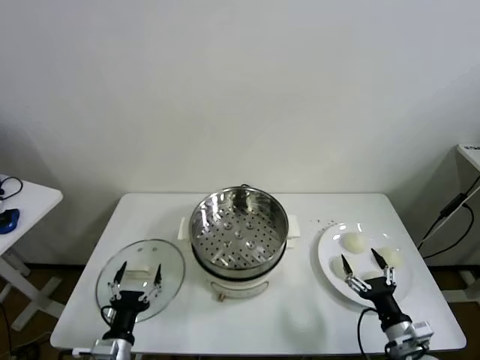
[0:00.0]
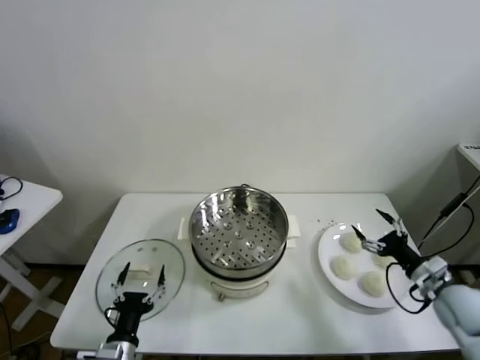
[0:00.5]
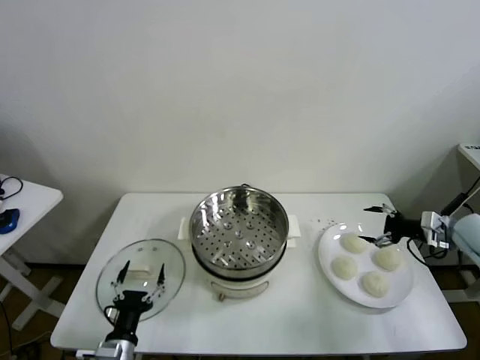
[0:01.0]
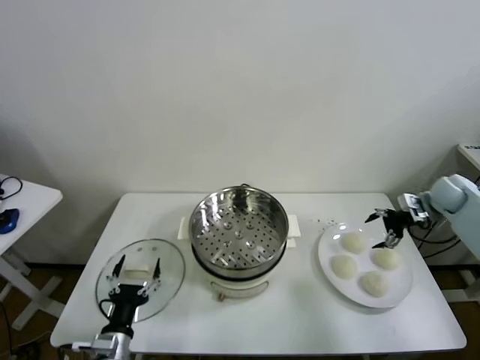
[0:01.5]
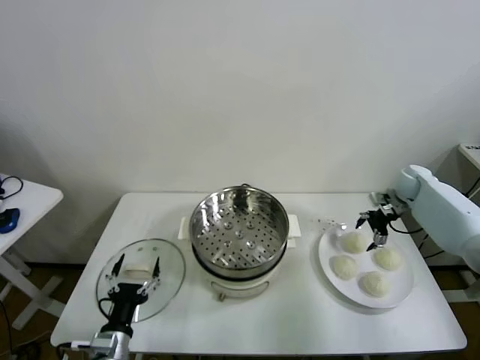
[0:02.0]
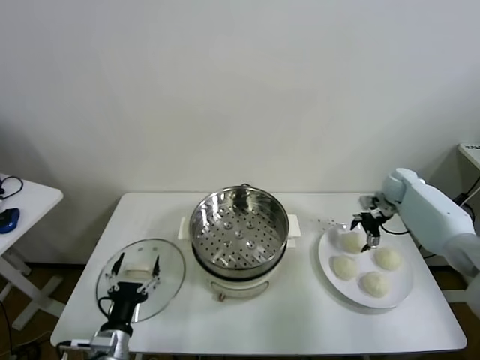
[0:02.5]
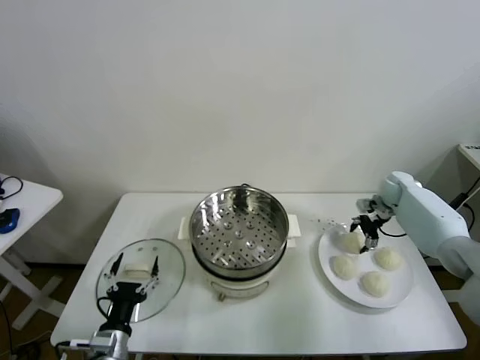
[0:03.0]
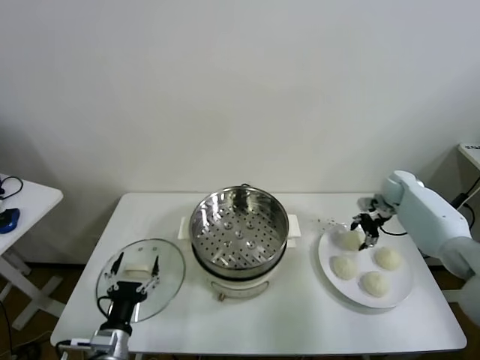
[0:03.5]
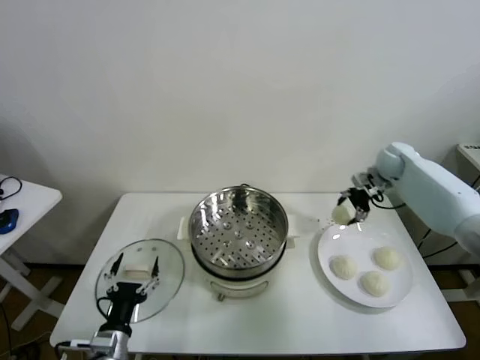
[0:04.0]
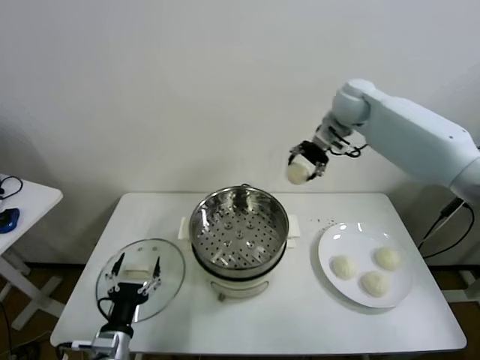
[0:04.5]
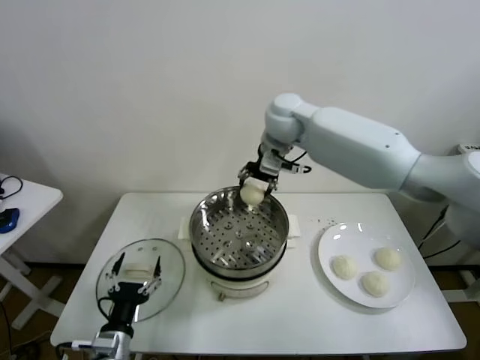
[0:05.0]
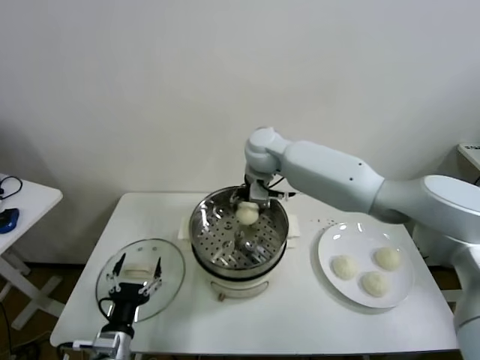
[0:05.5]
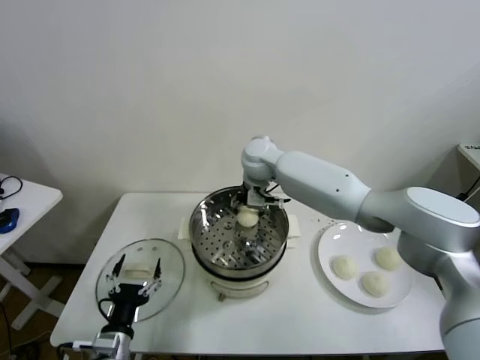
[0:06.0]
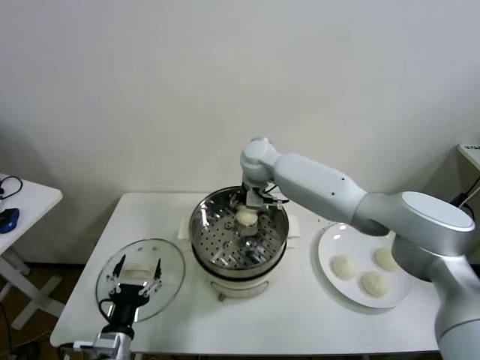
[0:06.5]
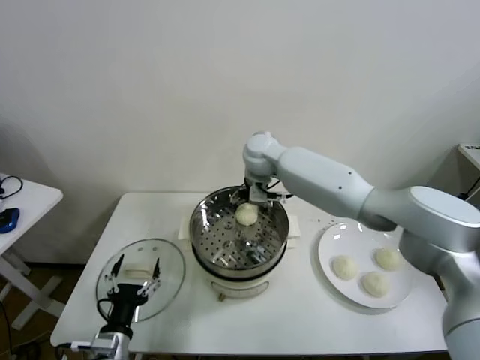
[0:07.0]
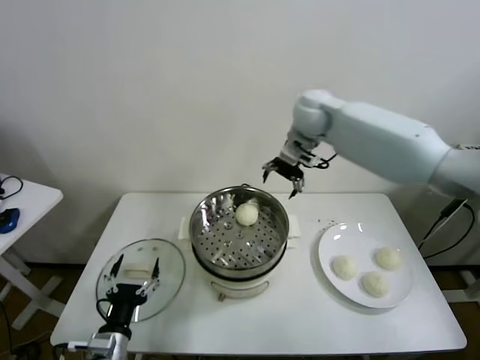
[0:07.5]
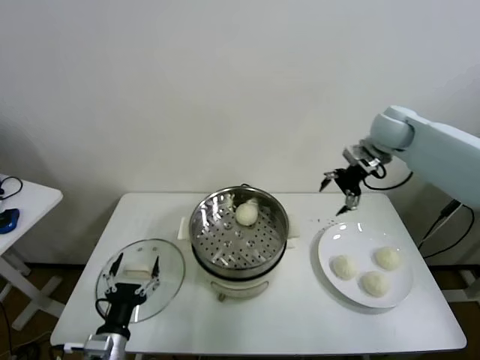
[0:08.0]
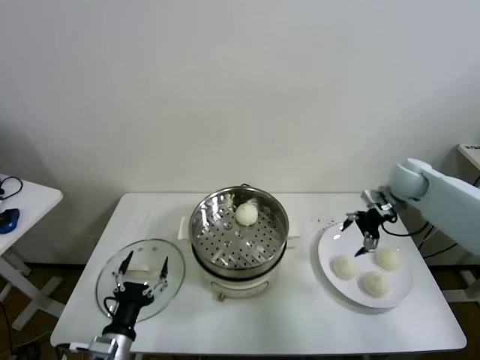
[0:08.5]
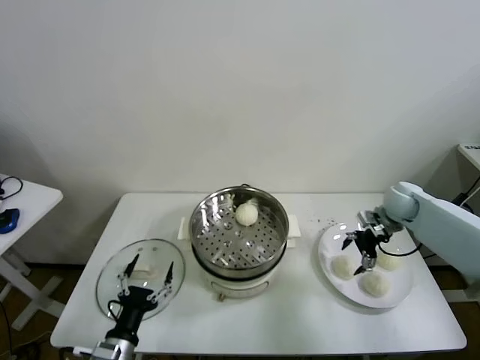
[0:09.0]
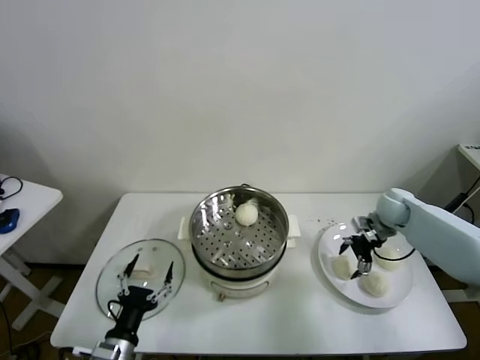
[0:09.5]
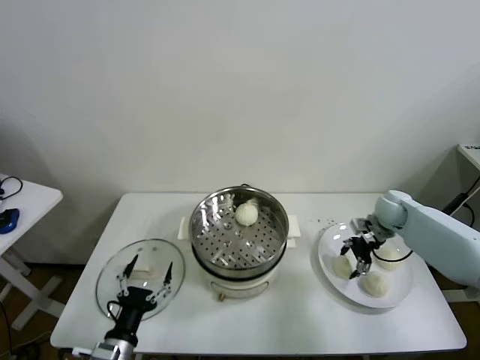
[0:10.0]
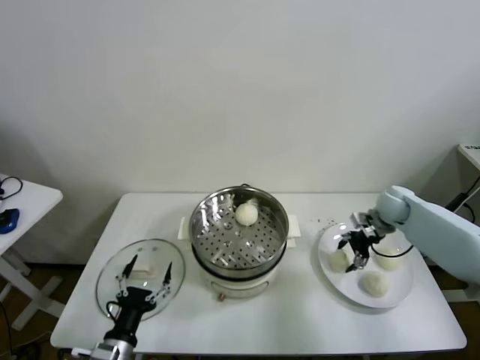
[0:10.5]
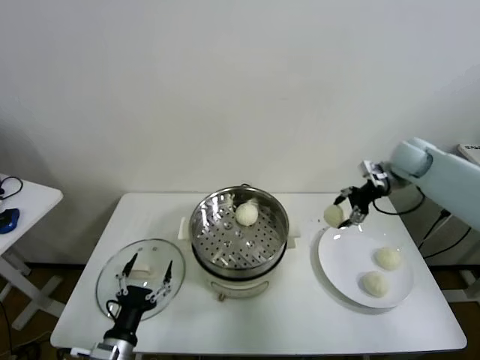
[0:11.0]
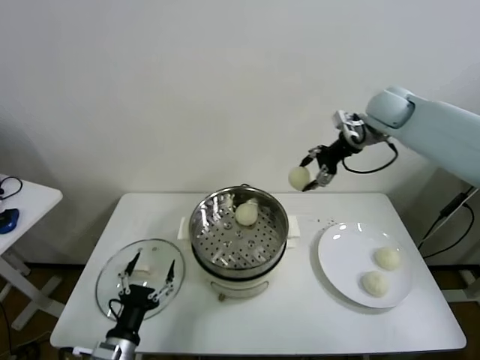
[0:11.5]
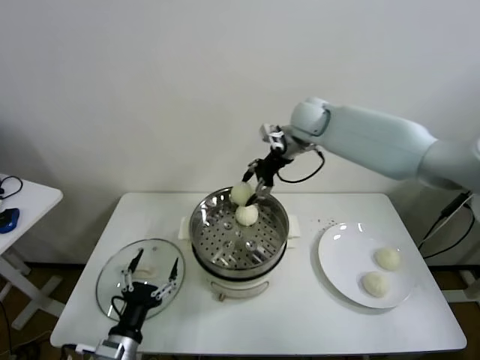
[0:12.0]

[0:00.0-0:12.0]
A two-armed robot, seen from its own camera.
Task of the whole recording: take steamed baozi put them in steamer.
Step, 0.0 to 3.0 s: Grasp the baozi in the plate with right gripper.
Step, 3.5 to 7.0 s: Place the baozi on the steamer with right gripper.
Step, 7.5 to 10.0 s: Grasp the baozi in the plate with right gripper.
2.0 to 4.0 s: The right gripper shifts some 15 cm upward and to the left, and closes its fingers.
4.0 to 6.0 s: The right gripper goes roughly 35 cm to the left.
6.0 to 8.0 s: The right gripper goes roughly 30 cm to the right, and opens its fingers.
8.0 to 10.0 s: The right gripper goes roughly 20 cm downward, and closes.
10.0 to 12.0 s: The right gripper shifts roughly 35 cm to the left and upward.

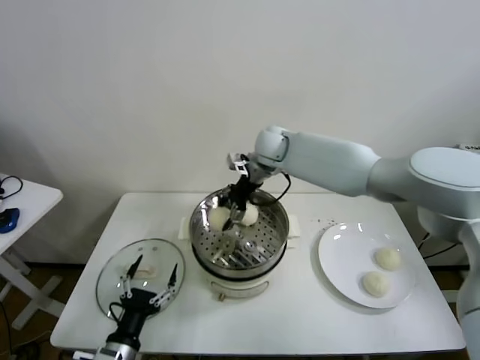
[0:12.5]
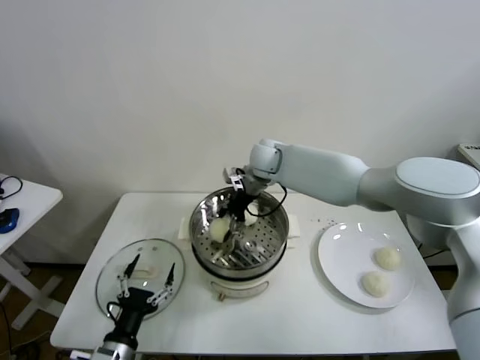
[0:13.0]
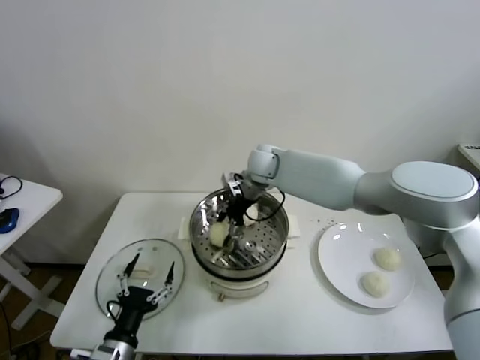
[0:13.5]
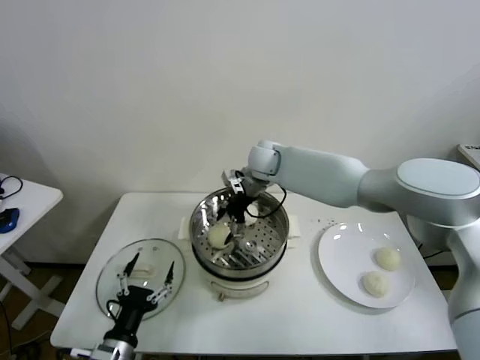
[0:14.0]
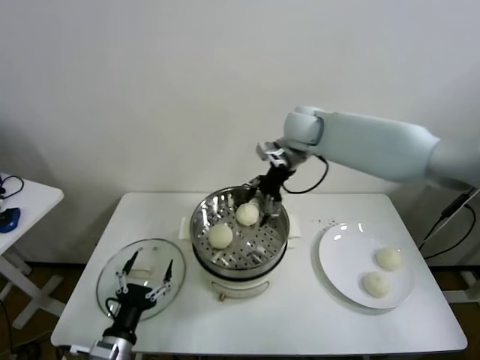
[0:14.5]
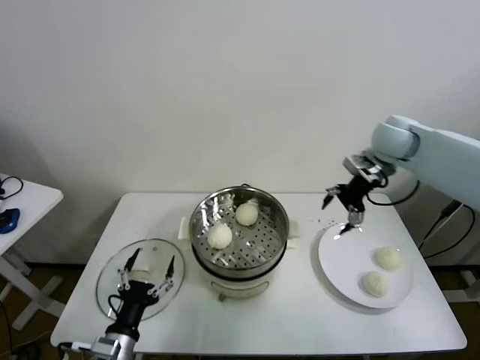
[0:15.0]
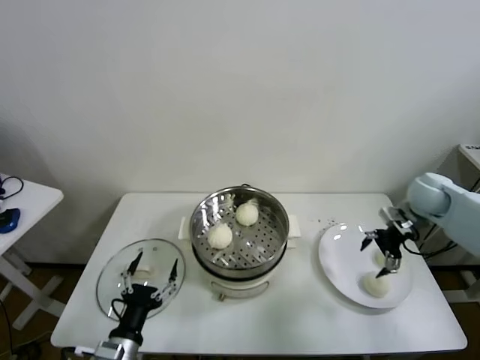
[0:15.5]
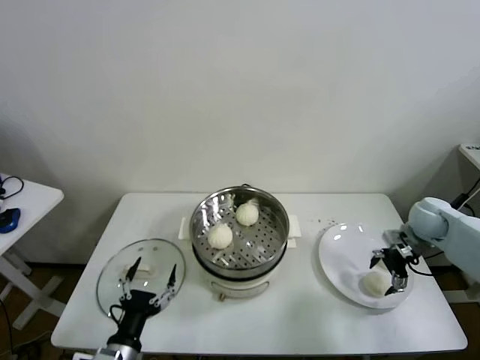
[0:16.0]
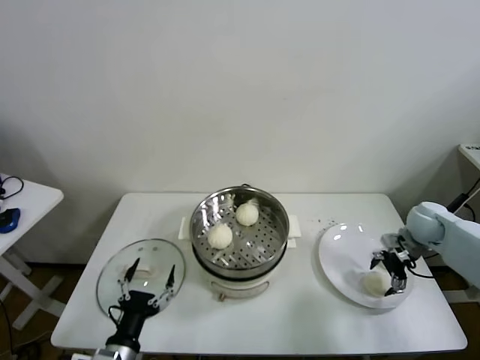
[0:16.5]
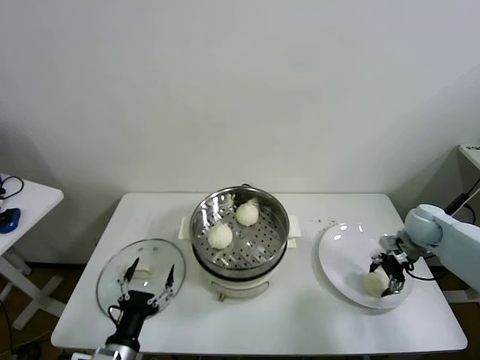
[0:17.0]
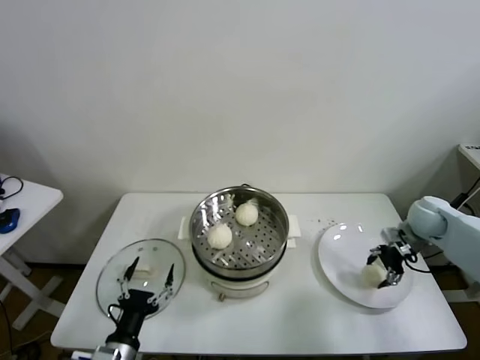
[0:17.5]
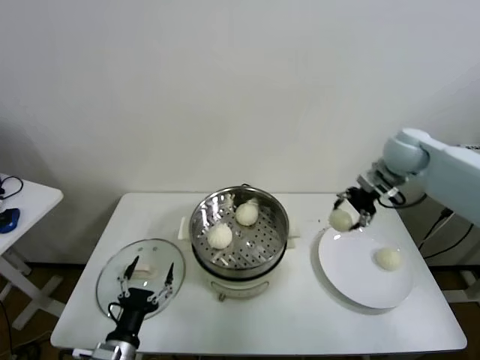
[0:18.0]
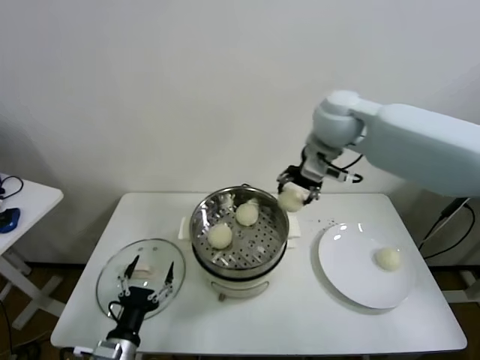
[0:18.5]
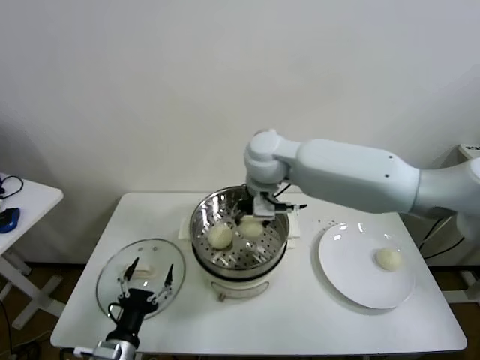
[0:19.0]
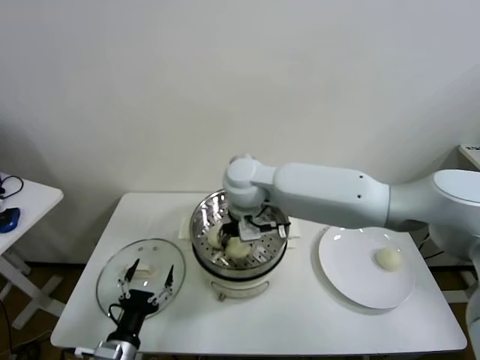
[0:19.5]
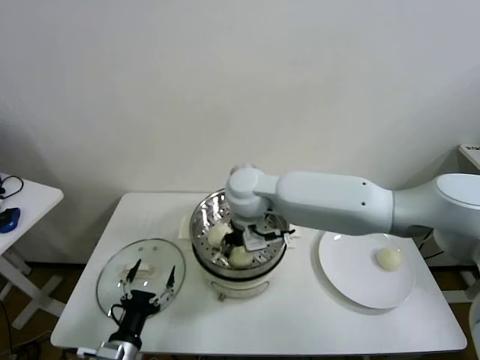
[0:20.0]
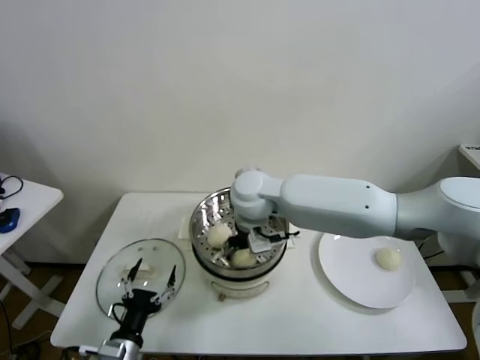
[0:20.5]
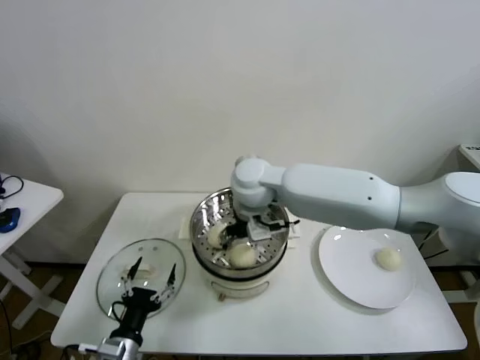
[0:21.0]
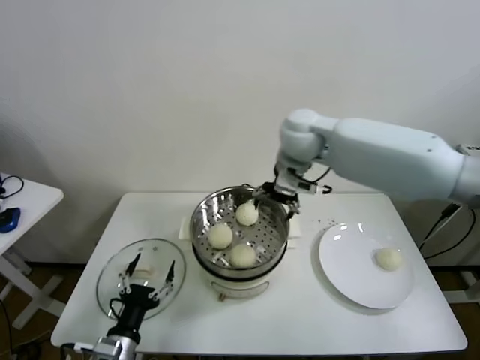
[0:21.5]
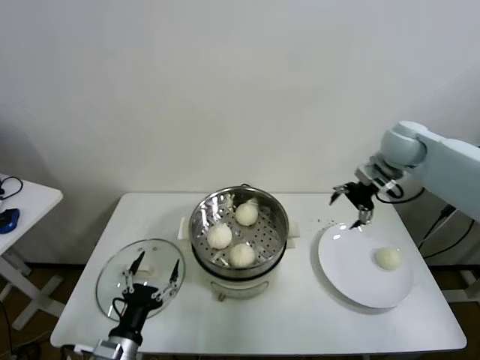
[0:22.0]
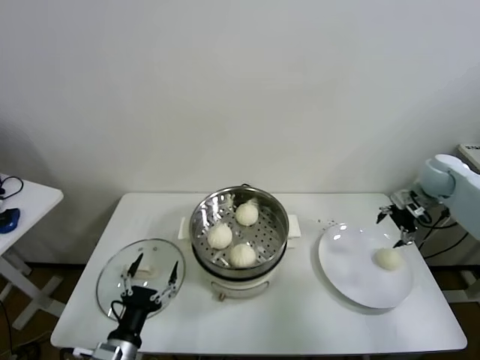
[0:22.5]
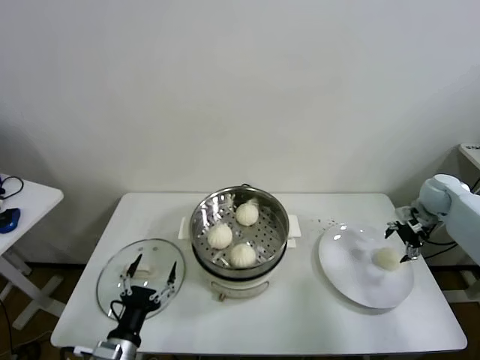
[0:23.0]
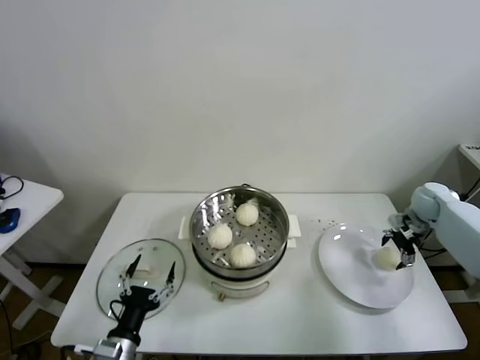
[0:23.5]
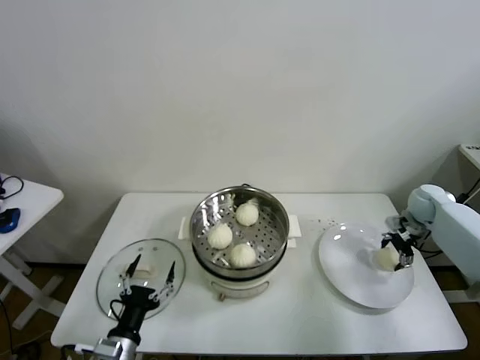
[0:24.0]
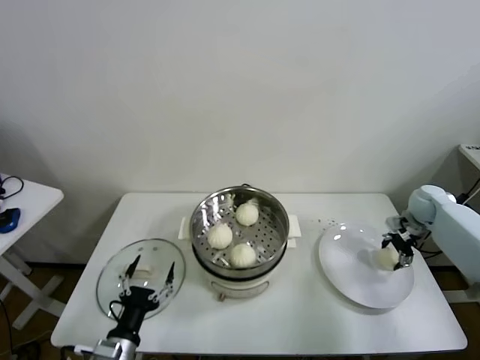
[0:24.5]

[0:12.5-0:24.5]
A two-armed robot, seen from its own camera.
Task of the whole recording: take steamed baozi put them in steamer.
Step, 14.5 to 17.0 s: Grasp the baozi in the plate with right gripper.
Step, 17.5 to 20.5 s: Place the baozi on the steamer with right gripper.
Step, 21.0 to 24.0 s: Grasp the baozi in the plate with right gripper.
12.5 to 14.5 s: The right gripper heads to the right and upward, covering roughly 10 cm, and opens.
14.5 to 16.5 s: The right gripper is displaced to the right and downward by approximately 35 cm.
16.5 to 18.5 s: The right gripper goes approximately 40 cm to the left and upward, and closes up.
18.5 to 20.5 s: The right gripper shifts approximately 20 cm to the left, downward and backward, and opens up.
20.5 to 22.5 s: The right gripper goes about 50 cm to the right.
22.5 to 24.5 s: The right gripper travels downward by roughly 10 cm, and closes.

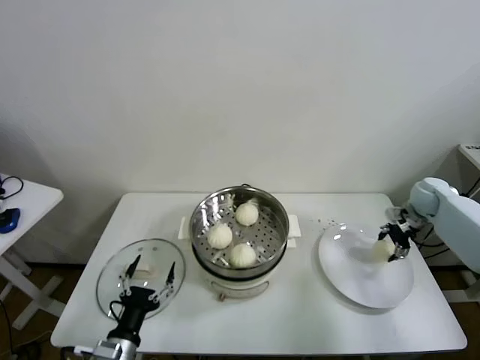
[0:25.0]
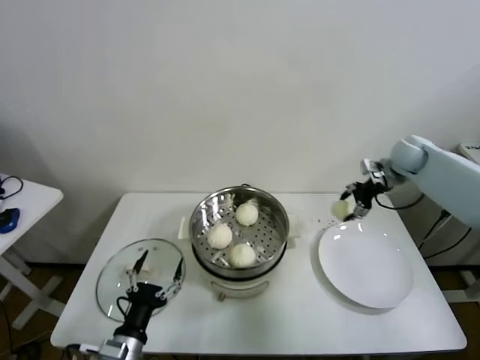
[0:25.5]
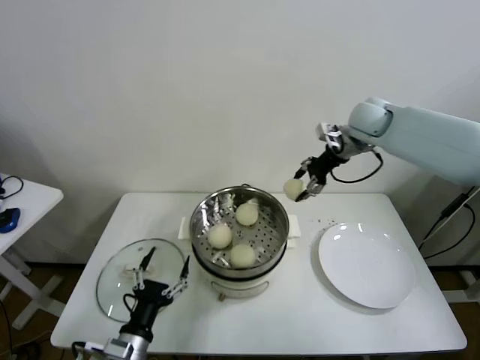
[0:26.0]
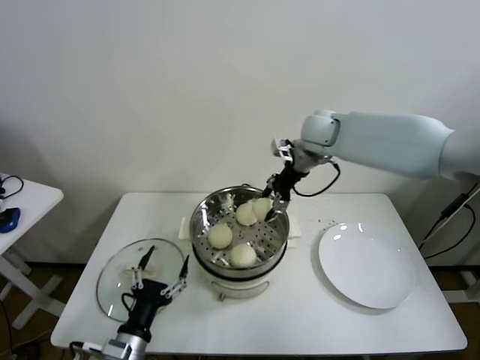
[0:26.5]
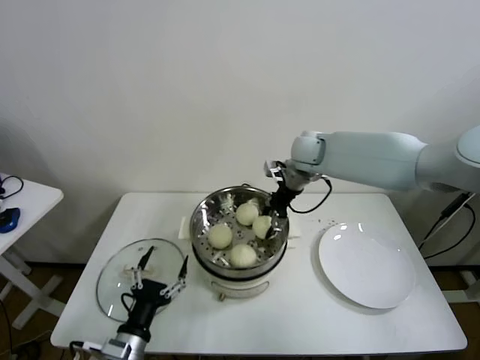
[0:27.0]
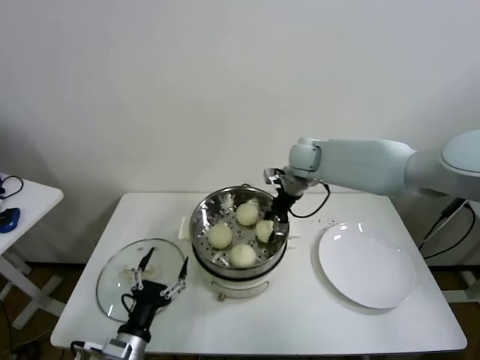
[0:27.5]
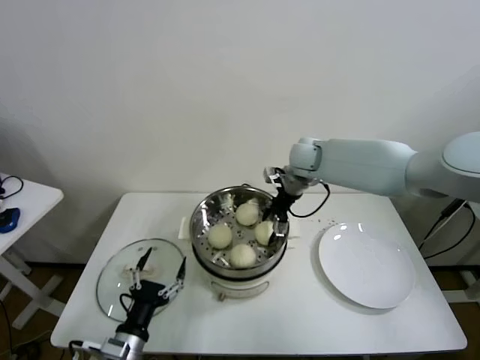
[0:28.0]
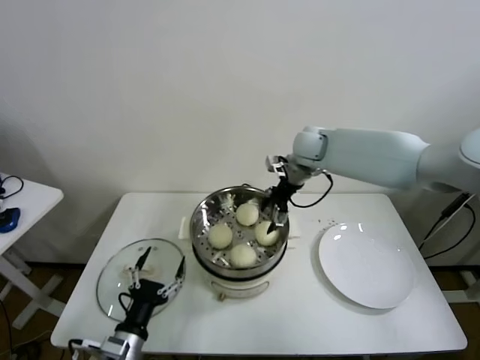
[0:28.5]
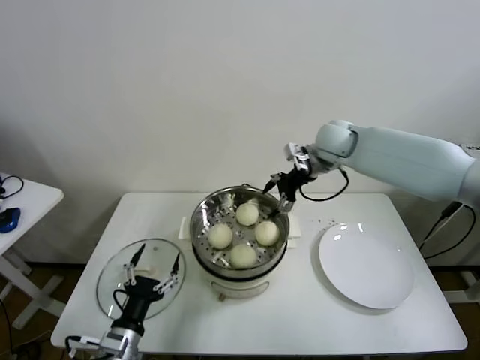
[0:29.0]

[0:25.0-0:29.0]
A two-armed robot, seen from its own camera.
Task of the whole recording: take steamed baozi put them in steamer.
Step, 25.0 to 28.0 s: Place the baozi on the steamer with right gripper.
25.0 to 27.0 s: The right gripper travels to the left by roughly 35 cm.
27.0 to 29.0 s: The right gripper is displaced to the right by roughly 5 cm, and opens its fingers.
